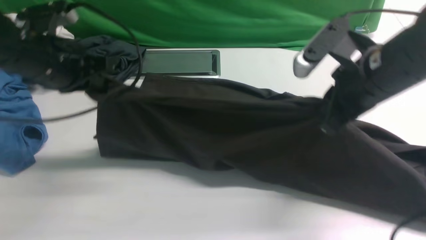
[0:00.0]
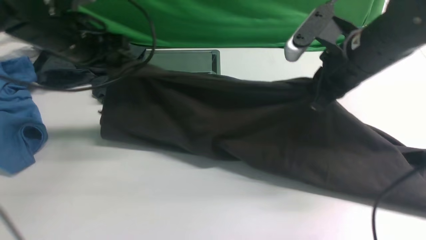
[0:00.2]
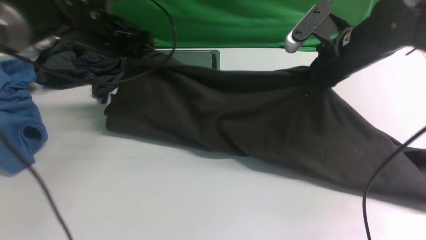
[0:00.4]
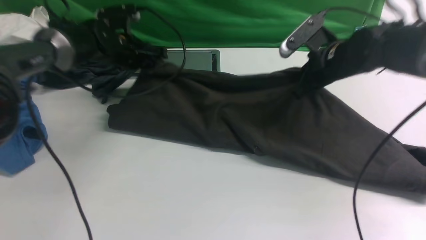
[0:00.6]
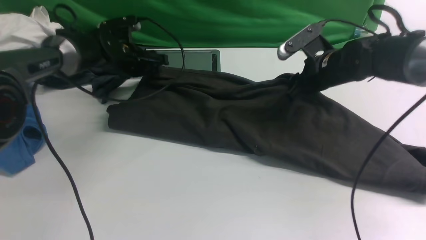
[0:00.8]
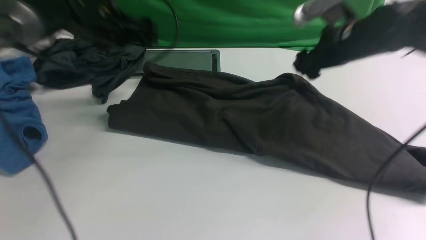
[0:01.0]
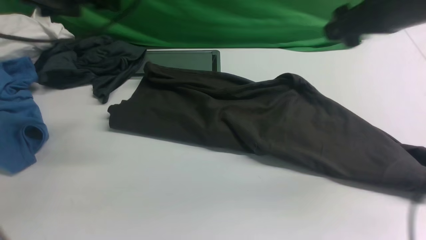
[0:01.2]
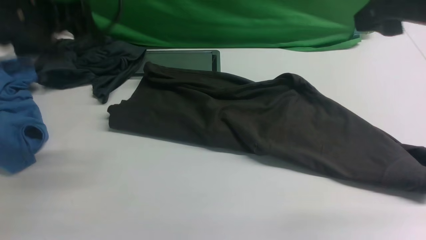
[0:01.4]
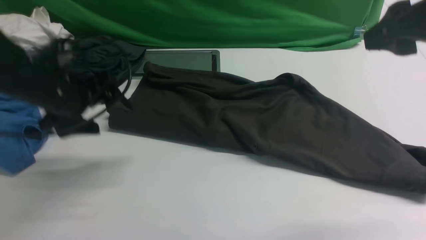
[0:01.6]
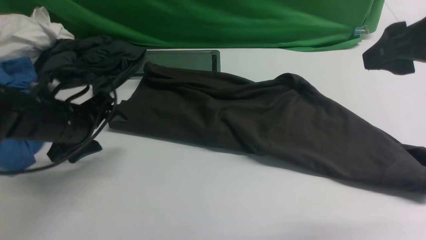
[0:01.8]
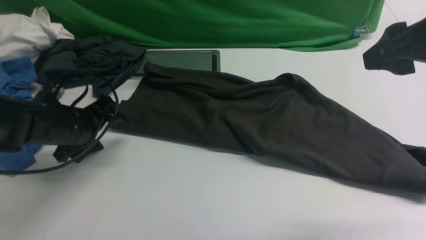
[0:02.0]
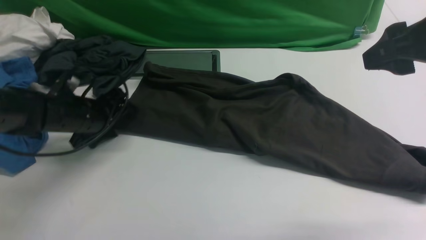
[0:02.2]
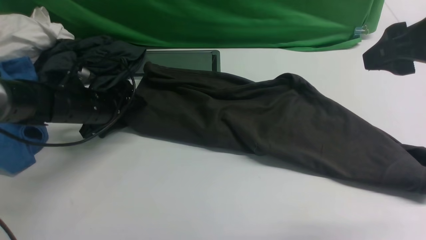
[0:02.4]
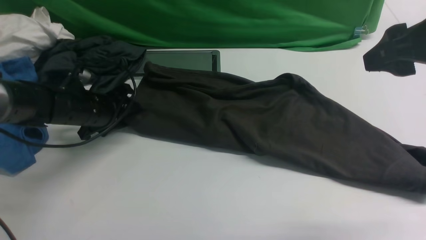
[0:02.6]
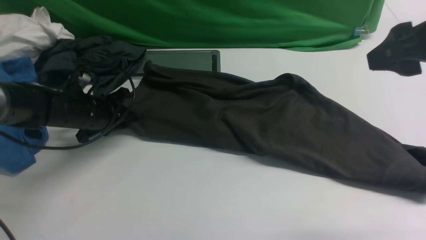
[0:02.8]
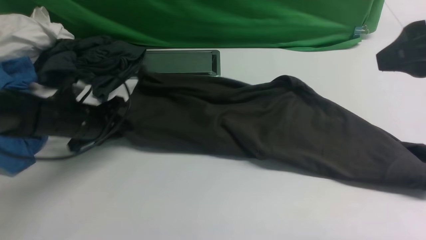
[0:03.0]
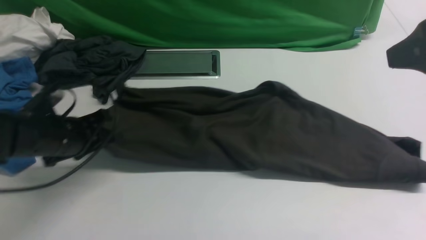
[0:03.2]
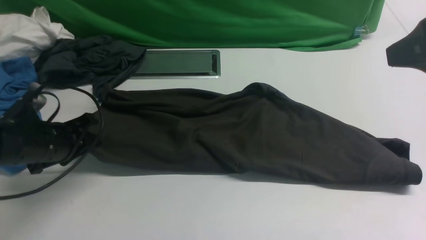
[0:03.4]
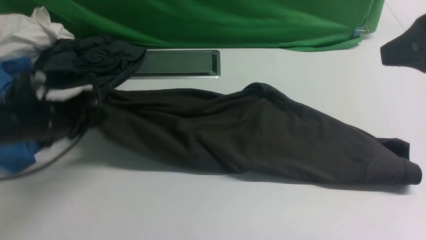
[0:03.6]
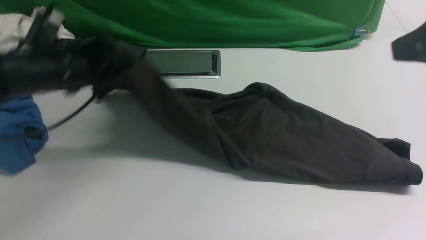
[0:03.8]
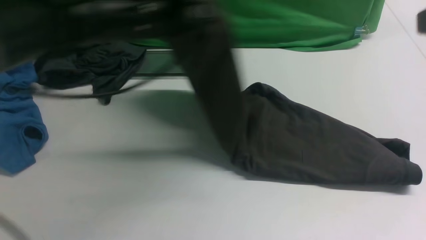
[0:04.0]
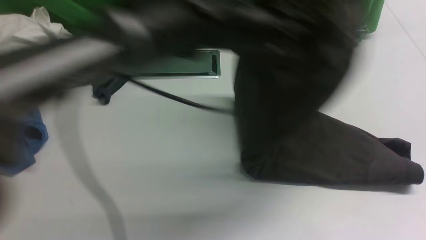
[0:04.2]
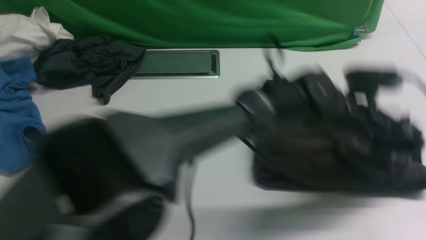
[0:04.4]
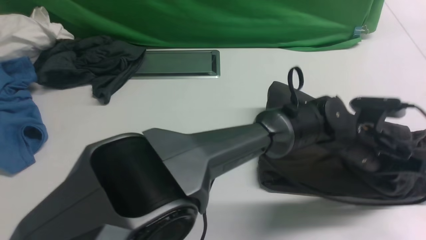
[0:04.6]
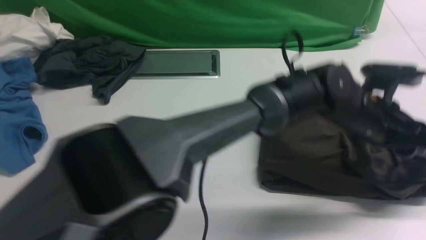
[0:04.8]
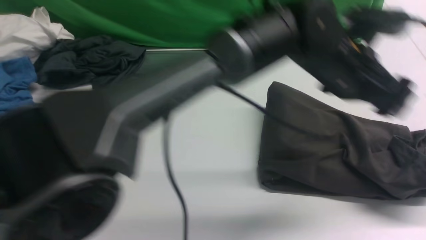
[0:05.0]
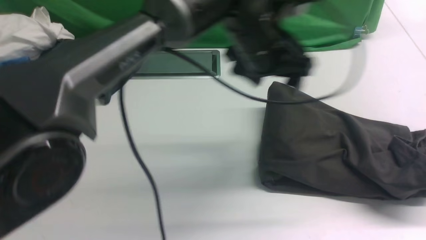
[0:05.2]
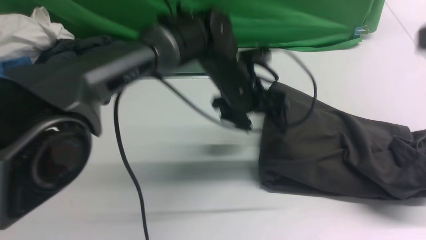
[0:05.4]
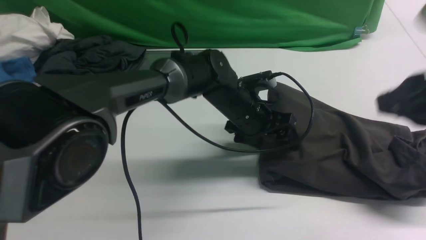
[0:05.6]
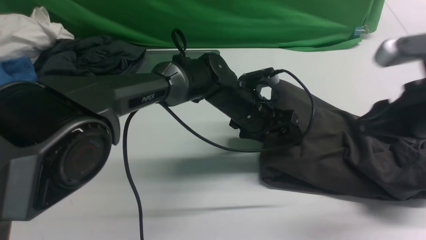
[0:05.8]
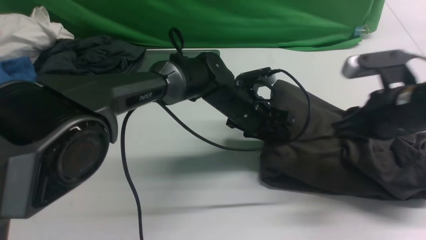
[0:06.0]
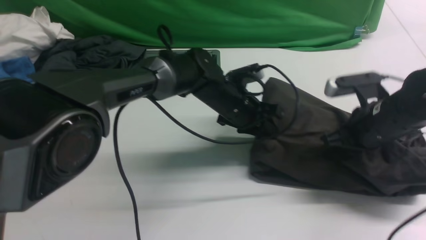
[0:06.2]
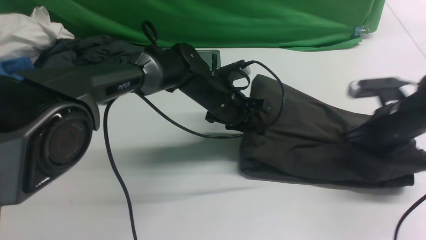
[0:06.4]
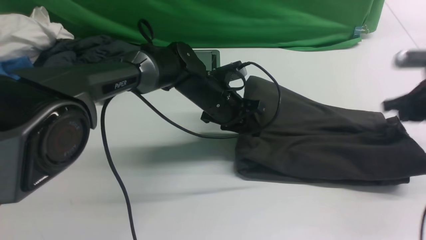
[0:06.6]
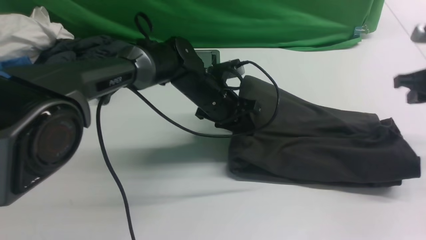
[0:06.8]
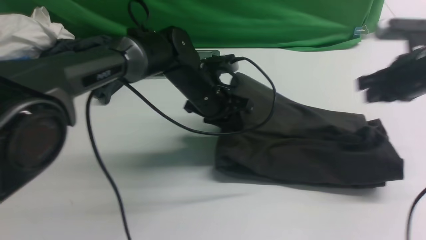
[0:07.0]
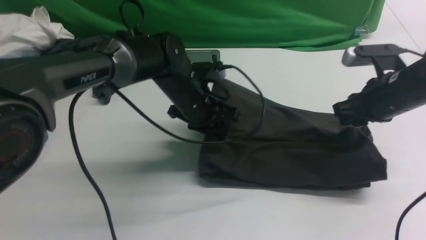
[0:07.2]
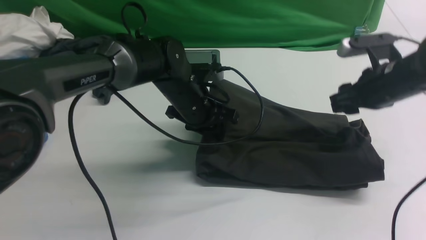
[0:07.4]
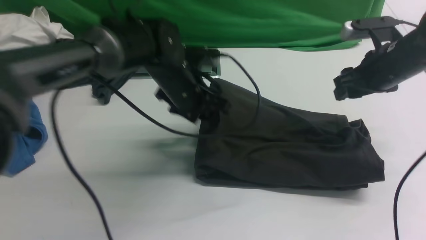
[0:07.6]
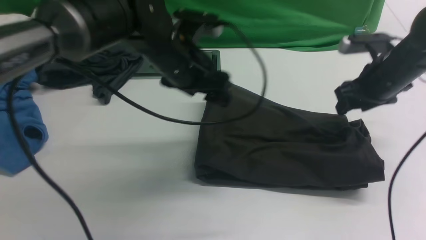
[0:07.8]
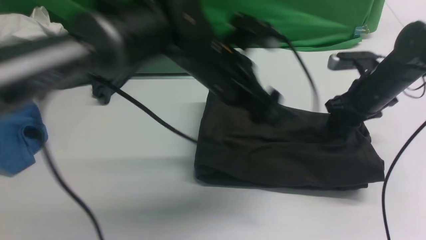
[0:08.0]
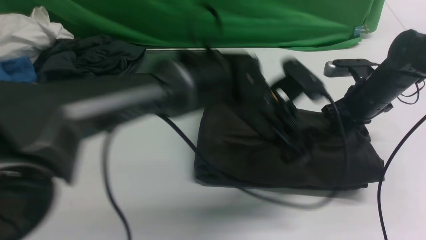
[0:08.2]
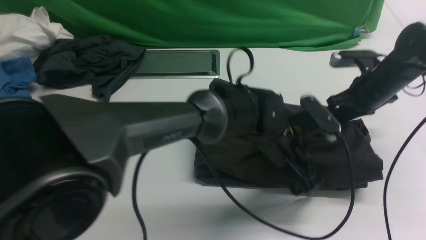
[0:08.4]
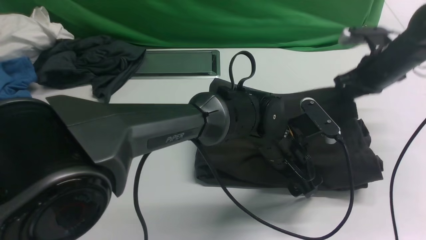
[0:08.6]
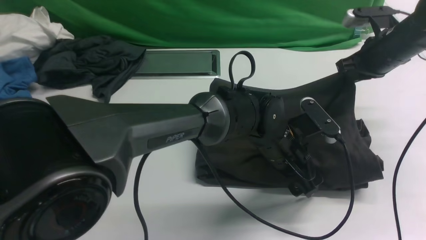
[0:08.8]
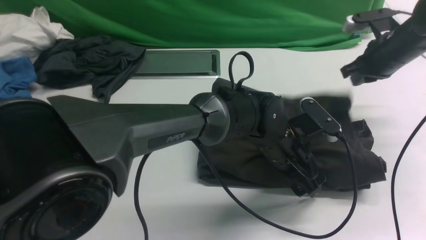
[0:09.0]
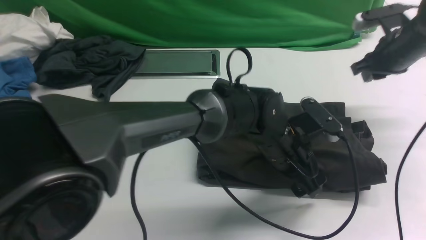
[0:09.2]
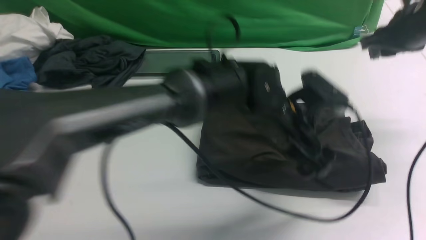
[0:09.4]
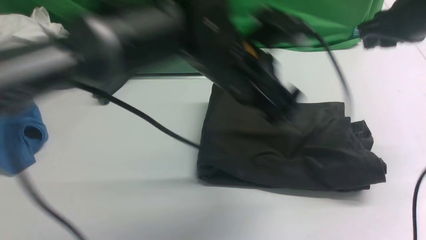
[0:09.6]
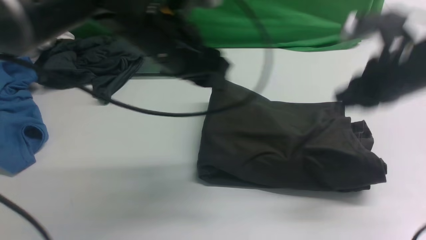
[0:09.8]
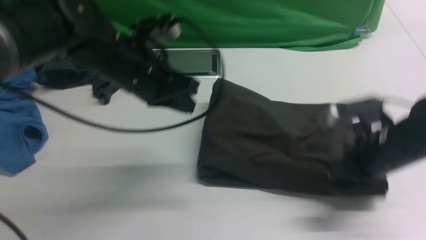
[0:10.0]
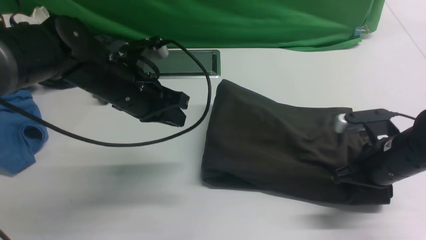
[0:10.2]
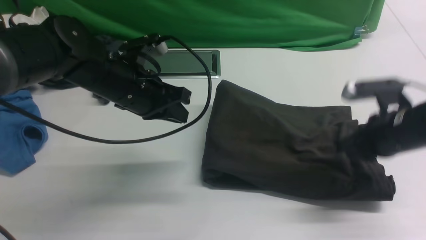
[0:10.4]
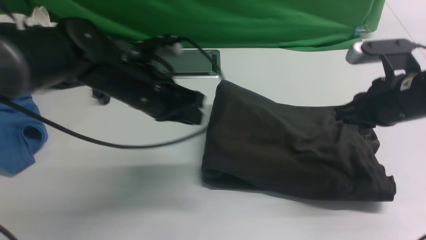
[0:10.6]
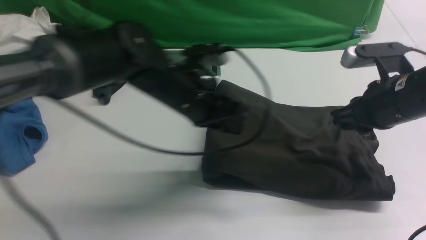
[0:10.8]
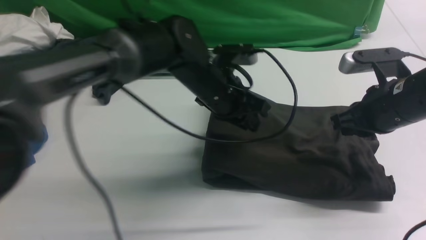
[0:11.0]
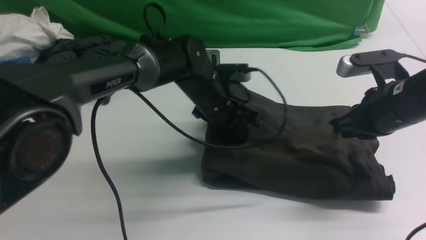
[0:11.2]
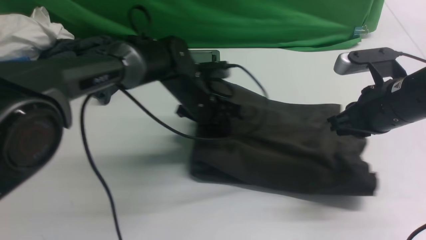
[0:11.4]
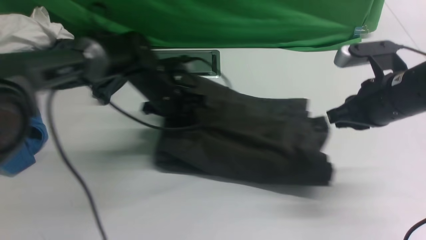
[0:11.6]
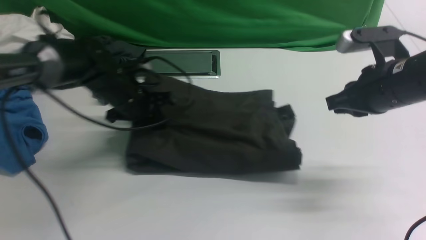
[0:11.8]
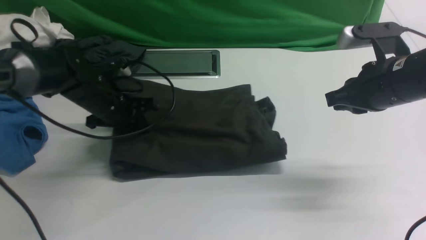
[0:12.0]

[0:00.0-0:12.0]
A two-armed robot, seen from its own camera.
Step, 0:00.0 to 0:01.2: use both arms to drag the lower edge of the fabric forward and fold it over the upper edge.
Step, 0:01.4 to 0:03.4: Hold the left edge of the fabric with your left arm.
Step, 0:03.6 to 0:04.8: Drag the left edge of the fabric to the left with your left arm and fold it to the right edge.
0:00.0 to 0:01.6: The right gripper shifts approximately 10 cm upward and to the right, and opens its fingers. Meanwhile the left gripper reaches roughly 15 cm forward, then returns, and opens.
0:01.6 to 0:03.0: The left gripper moves downward, about 10 cm, and closes up.
0:03.0 to 0:04.4: The left gripper is displaced to the right by approximately 40 cm, while the right gripper travels backward by some 5 cm, and closes up.
0:04.4 to 0:06.0: The right gripper goes approximately 25 cm downward and forward, while the left gripper heads to the left, forward and downward, covering approximately 20 cm, and opens and closes again.
0:06.0 to 0:07.6: The left gripper shifts some 10 cm to the left and upward. The right gripper heads forward, covering roughly 10 cm, and opens its fingers.
0:07.6 to 0:09.0: The left gripper moves to the right, backward and downward, approximately 20 cm. Meanwhile the right gripper moves forward, roughly 5 cm, and closes its fingers.
0:09.0 to 0:10.4: The left gripper heads to the left, covering some 20 cm, and closes up; the right gripper shifts roughly 15 cm backward.
0:10.4 to 0:12.0: The right gripper is displaced upward by some 5 cm; the left gripper heads to the left, downward and forward, covering roughly 10 cm.

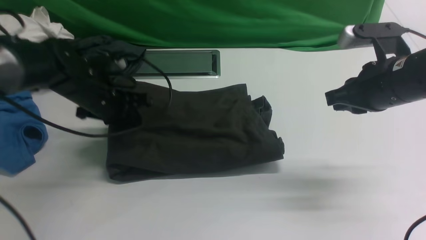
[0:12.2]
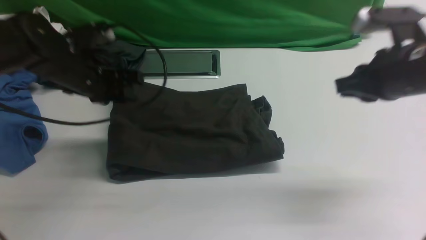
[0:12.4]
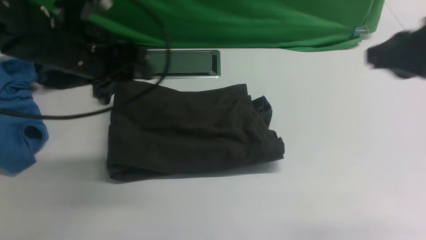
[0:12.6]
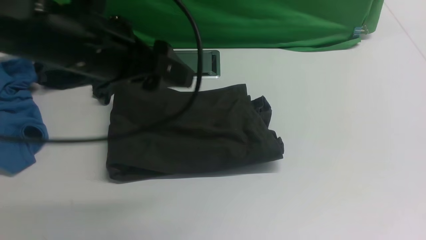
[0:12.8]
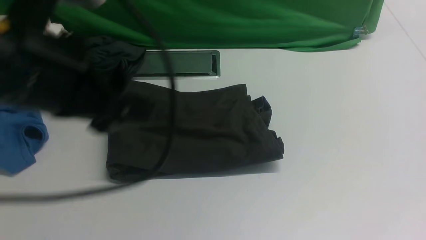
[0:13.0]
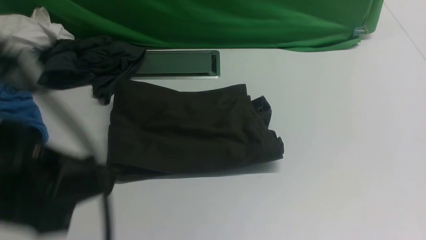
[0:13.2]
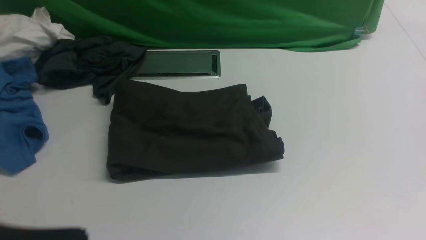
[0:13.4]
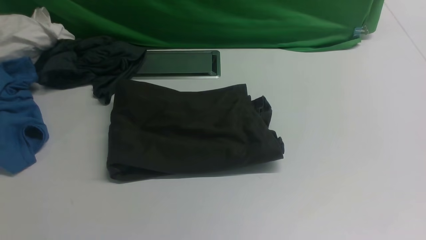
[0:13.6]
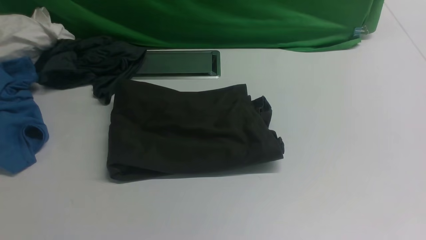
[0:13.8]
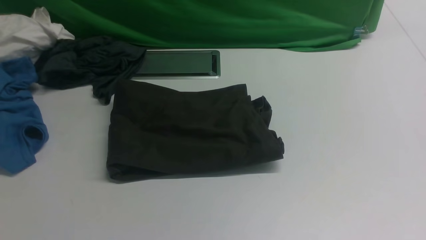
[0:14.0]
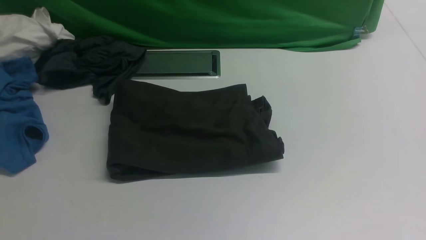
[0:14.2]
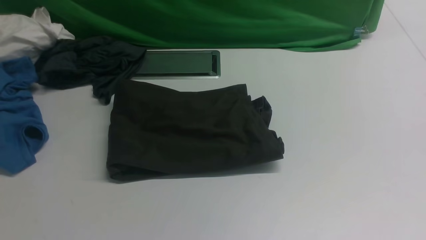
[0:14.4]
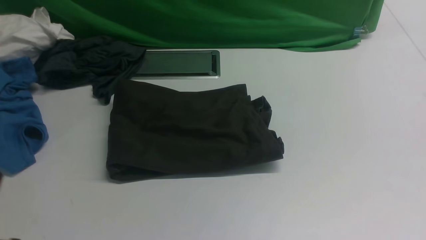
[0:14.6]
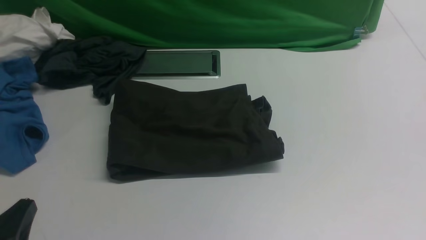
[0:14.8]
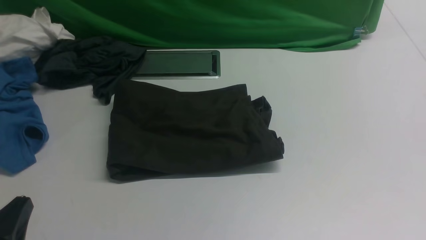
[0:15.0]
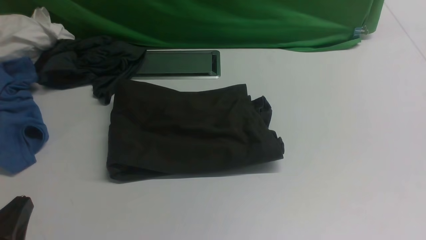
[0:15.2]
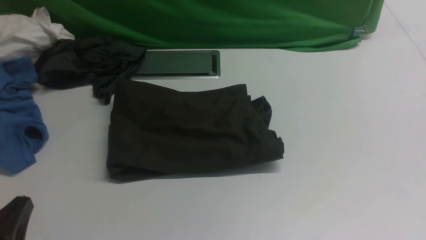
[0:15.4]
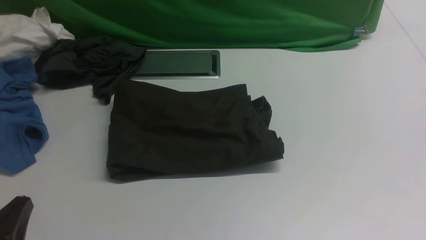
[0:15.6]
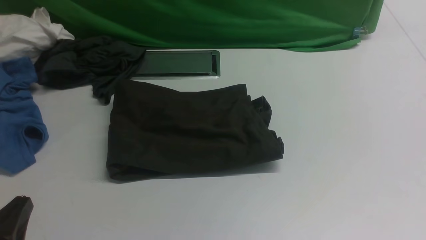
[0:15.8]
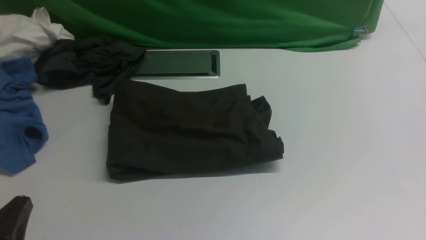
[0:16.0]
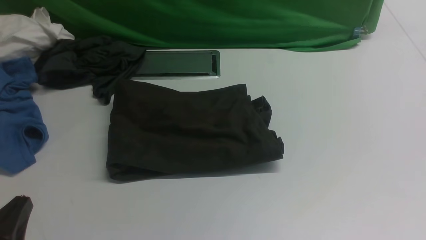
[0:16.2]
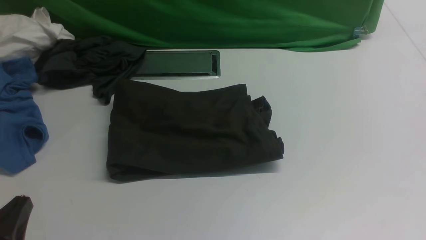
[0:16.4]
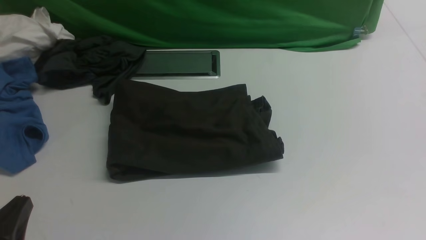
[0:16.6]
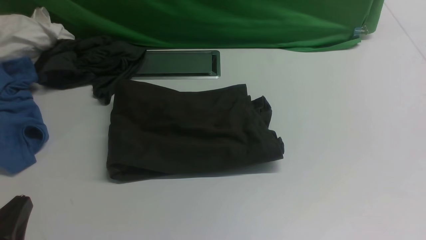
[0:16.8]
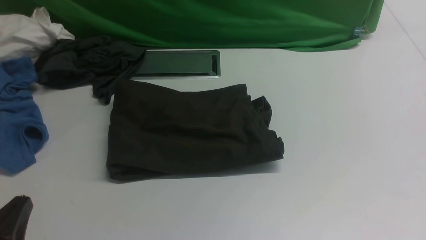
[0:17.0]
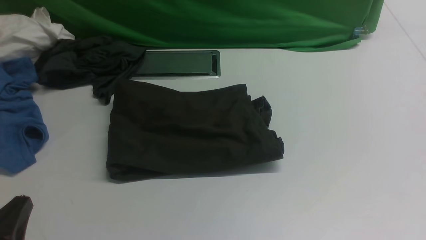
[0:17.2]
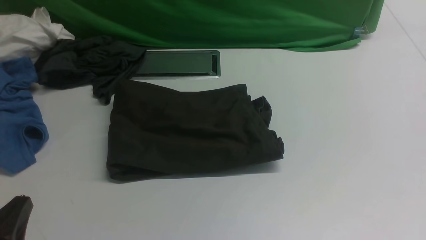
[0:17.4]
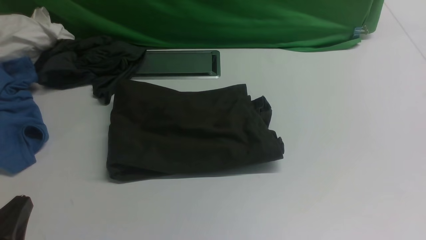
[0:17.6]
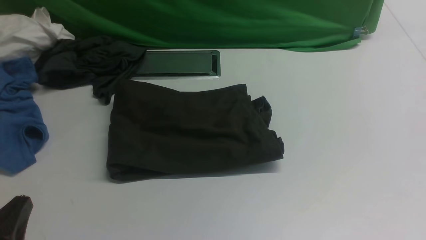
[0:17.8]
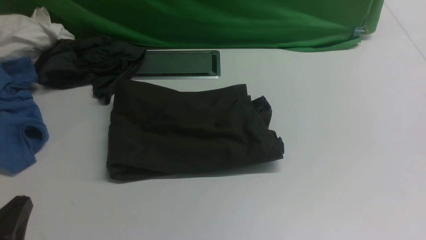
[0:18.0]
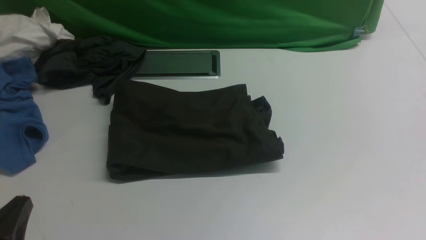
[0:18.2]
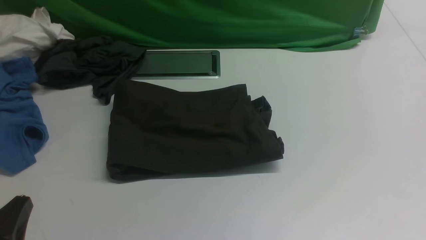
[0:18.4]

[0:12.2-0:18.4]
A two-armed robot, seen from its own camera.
0:12.2 to 0:13.8: The left gripper shifts some 40 cm backward, and opens and closes again; the right gripper is displaced backward by approximately 25 cm.
0:13.8 to 0:15.4: The left gripper heads downward and forward, covering some 15 cm.
